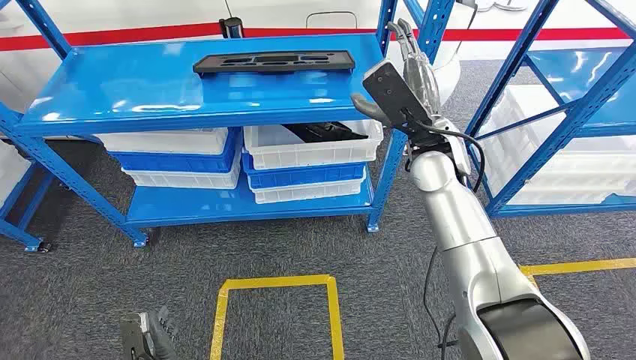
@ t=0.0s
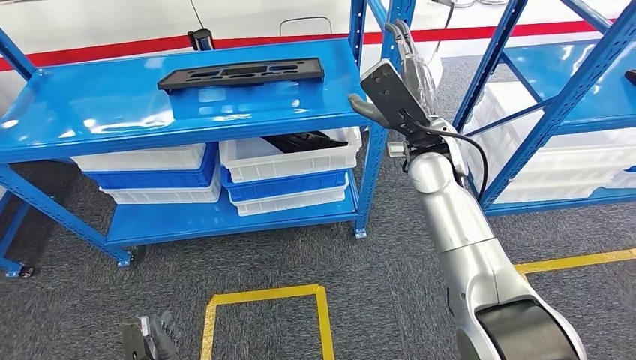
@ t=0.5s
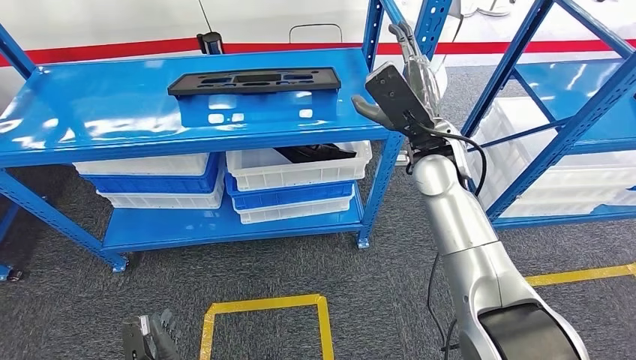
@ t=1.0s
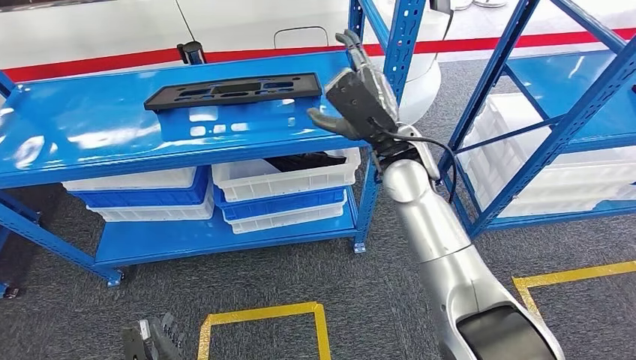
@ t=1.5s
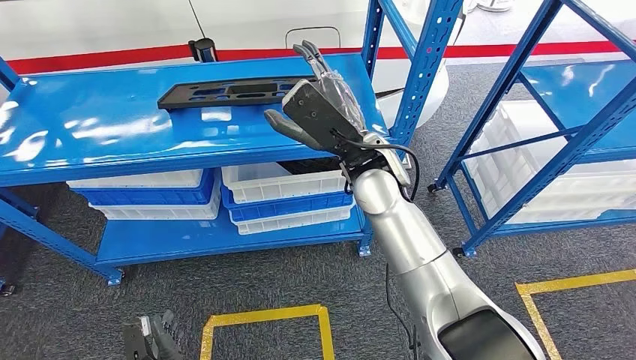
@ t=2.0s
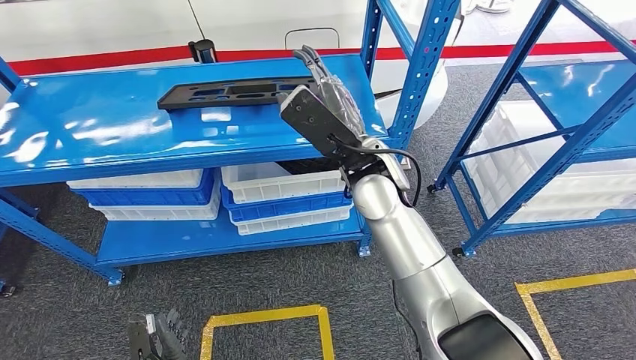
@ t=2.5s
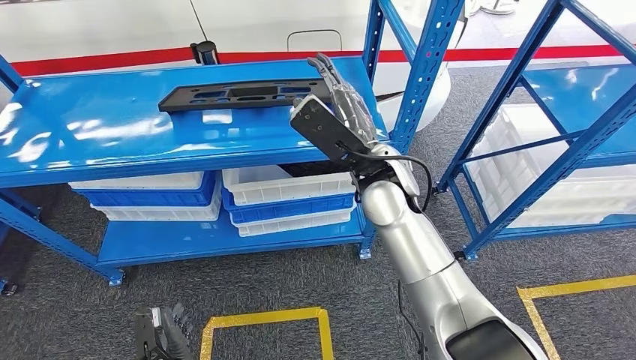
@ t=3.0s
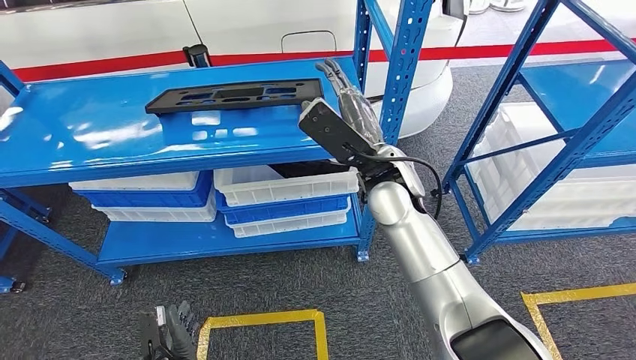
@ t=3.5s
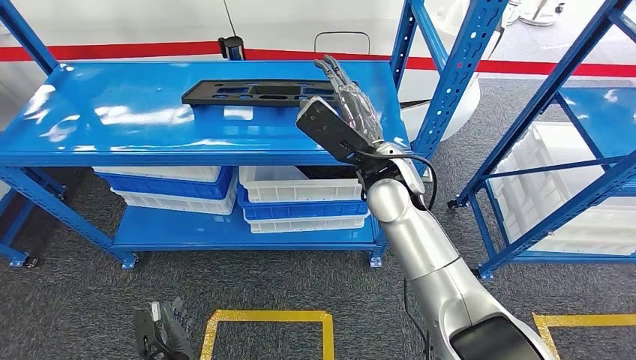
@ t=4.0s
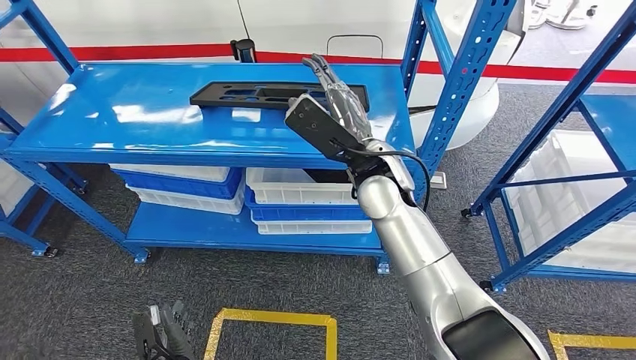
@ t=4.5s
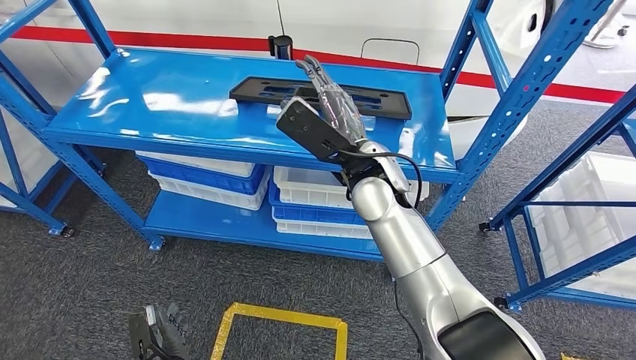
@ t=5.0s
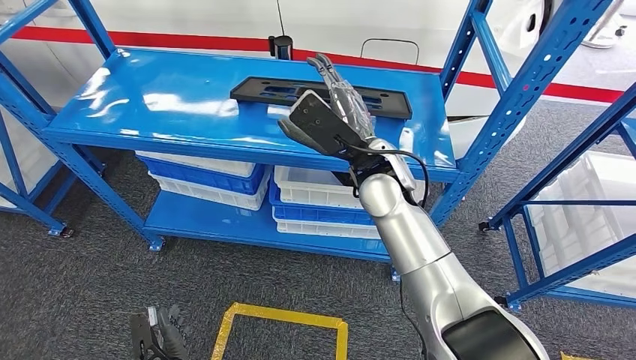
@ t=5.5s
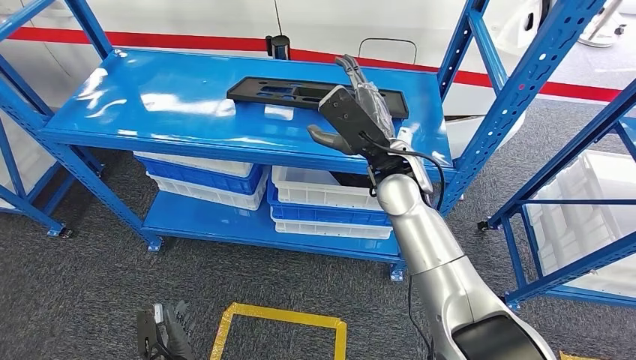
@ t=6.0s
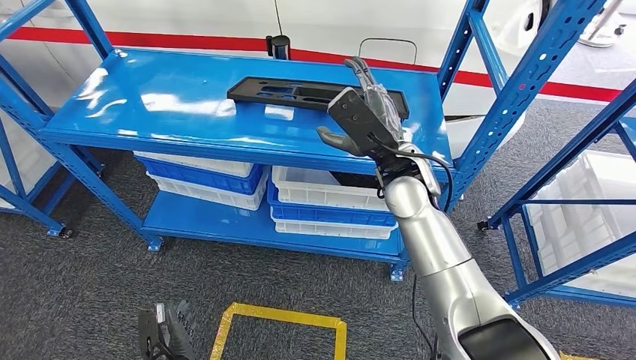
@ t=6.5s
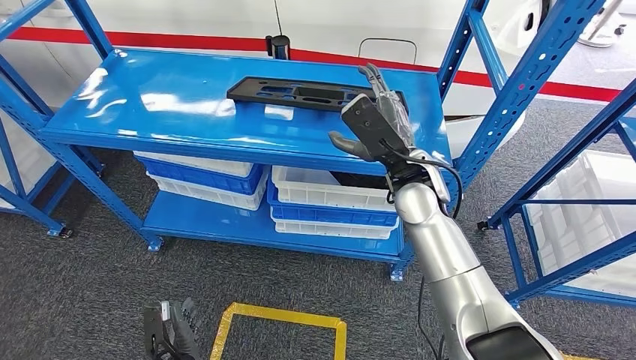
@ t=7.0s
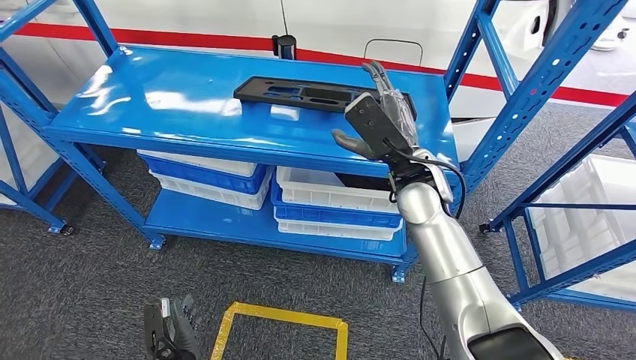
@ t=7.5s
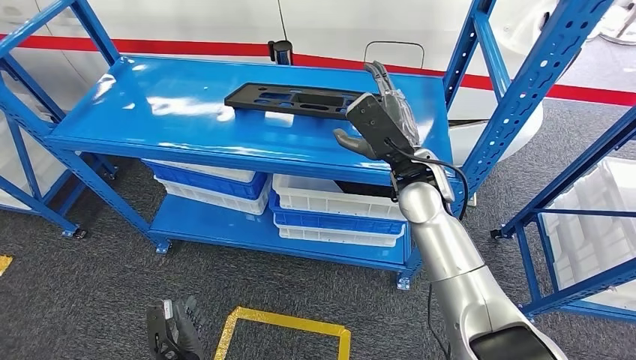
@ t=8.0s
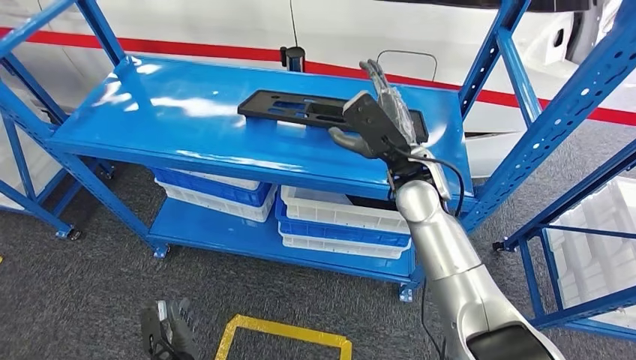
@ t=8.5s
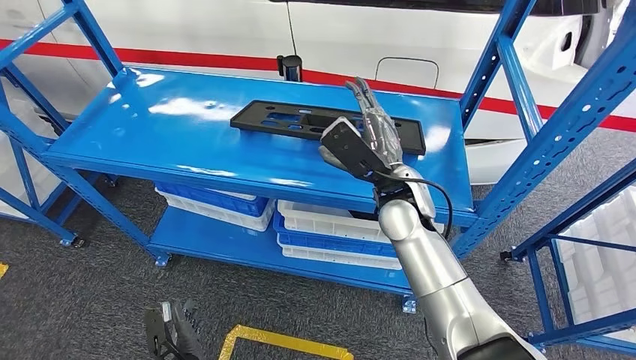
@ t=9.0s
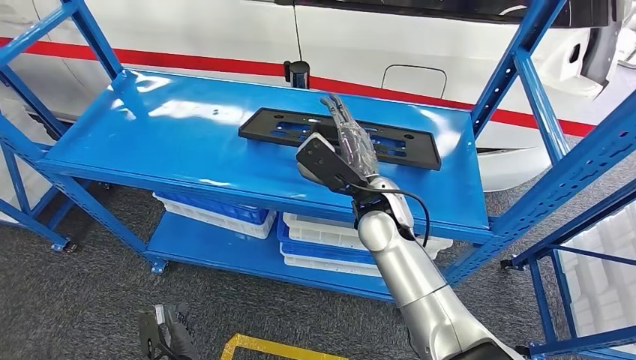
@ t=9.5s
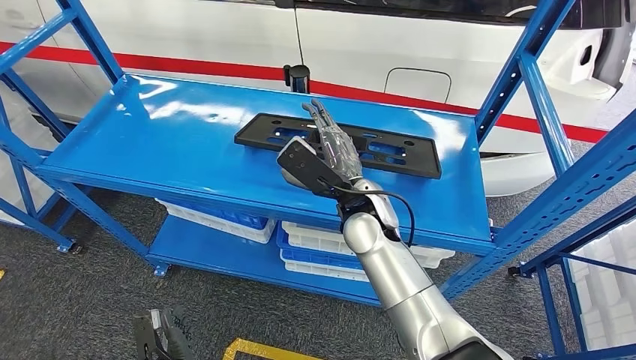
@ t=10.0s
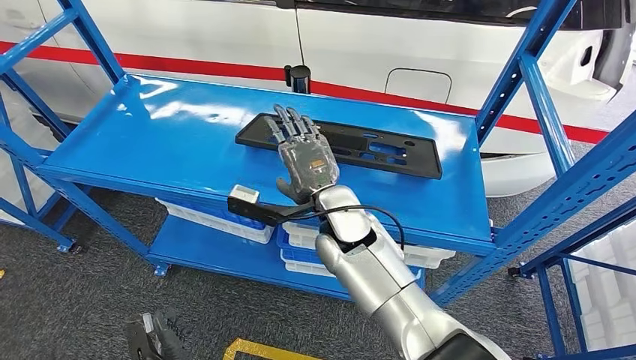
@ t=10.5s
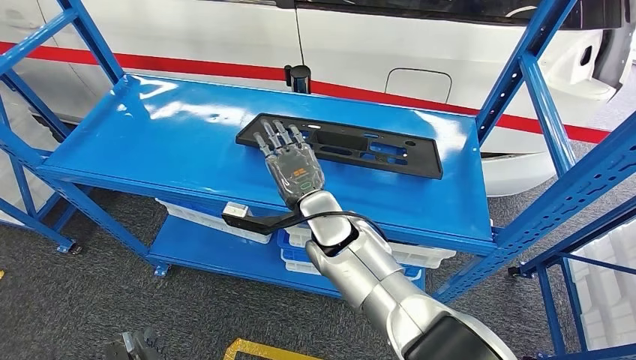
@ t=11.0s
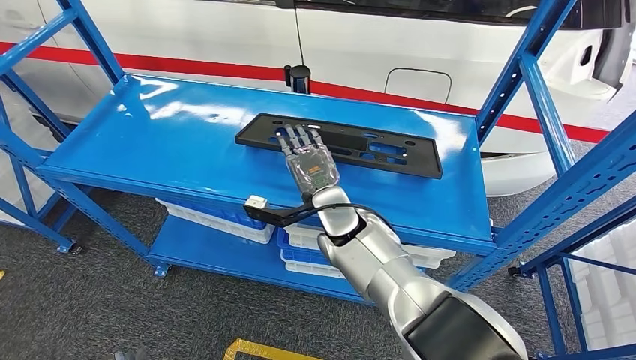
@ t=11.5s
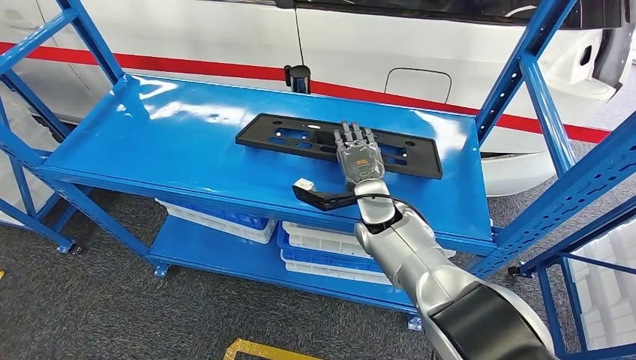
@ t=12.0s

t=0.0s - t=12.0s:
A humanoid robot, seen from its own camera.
t=10.0s - t=12.0s: The left hand travels backward and to the left by some 10 cm. The right hand moves downward, about 5 cm, and moves some 5 cm to the left and comes back.

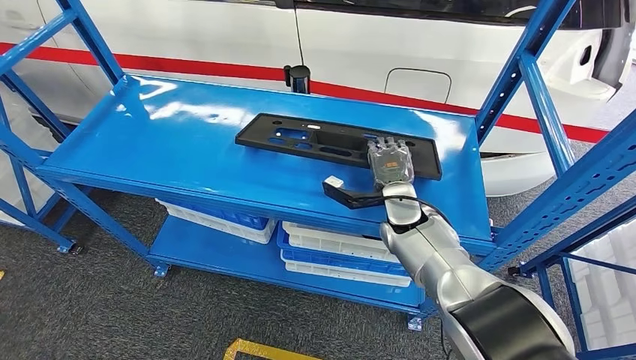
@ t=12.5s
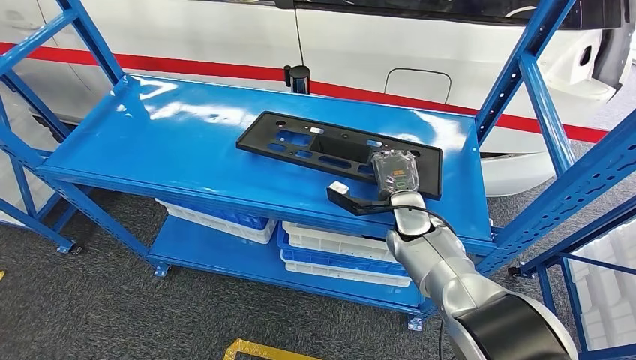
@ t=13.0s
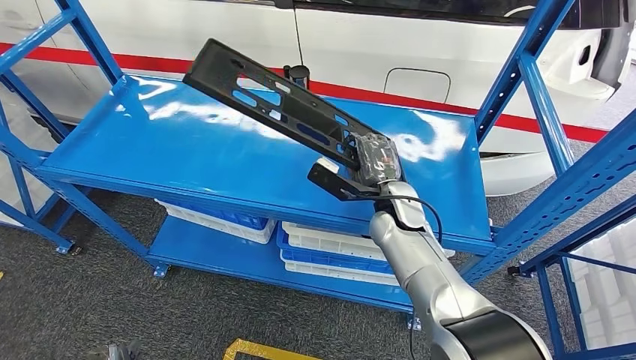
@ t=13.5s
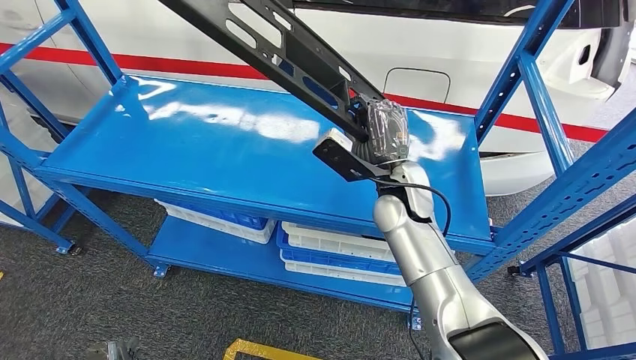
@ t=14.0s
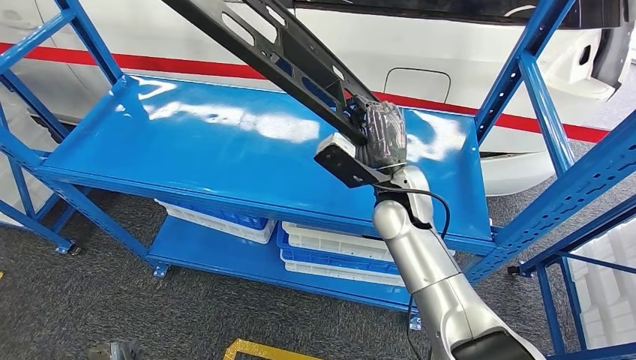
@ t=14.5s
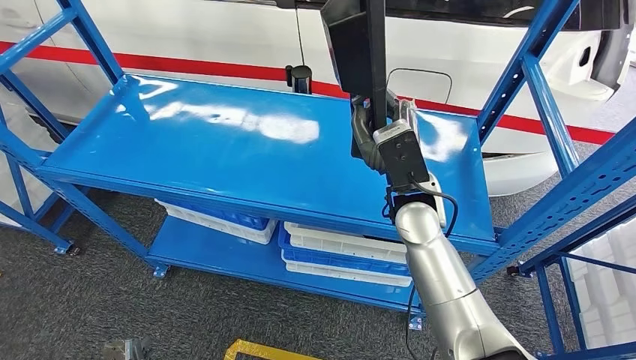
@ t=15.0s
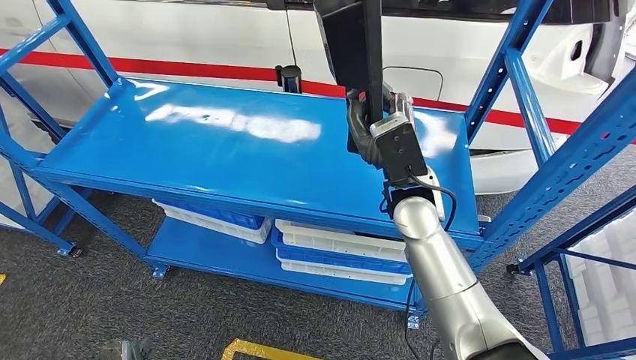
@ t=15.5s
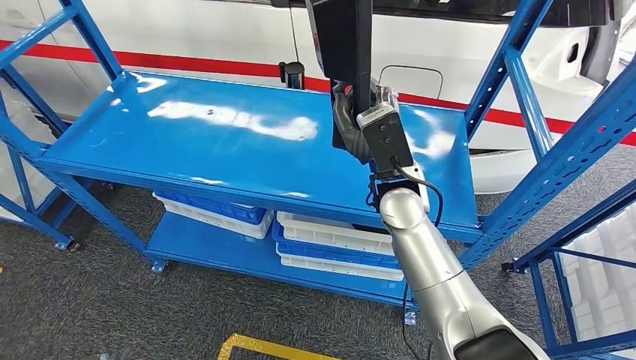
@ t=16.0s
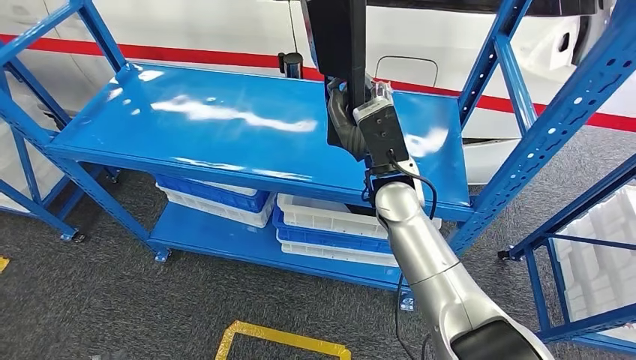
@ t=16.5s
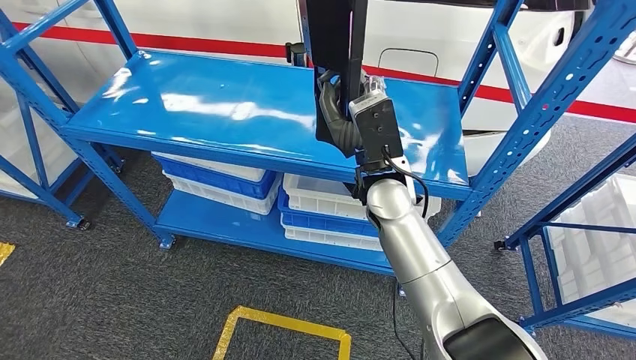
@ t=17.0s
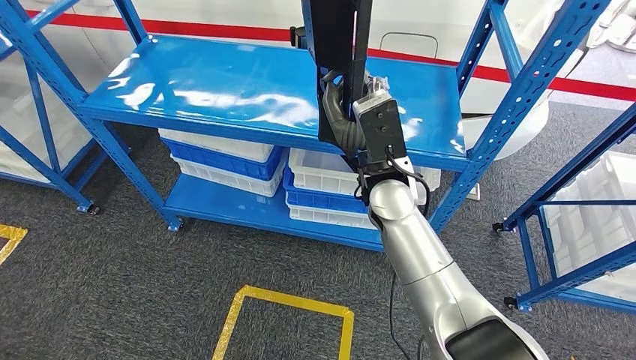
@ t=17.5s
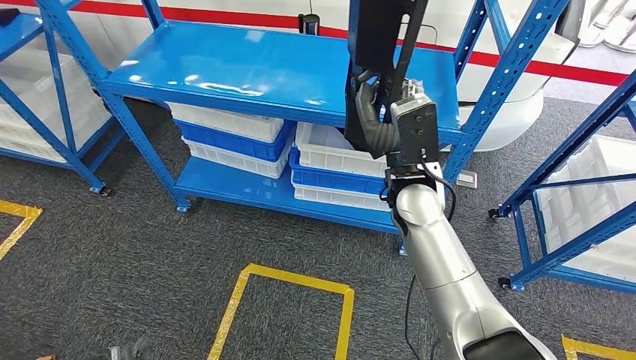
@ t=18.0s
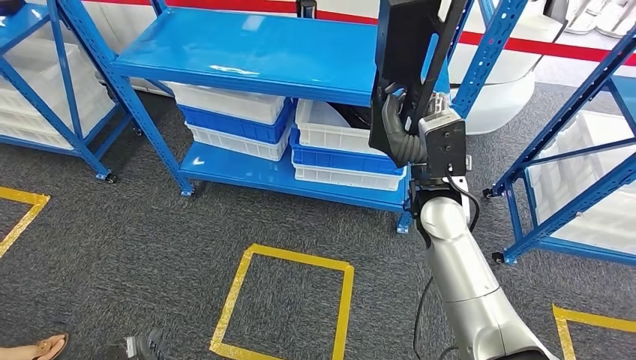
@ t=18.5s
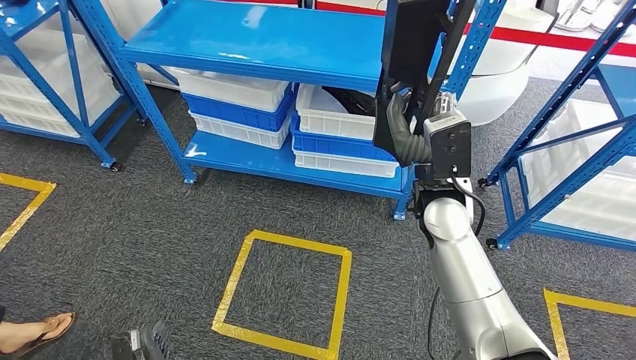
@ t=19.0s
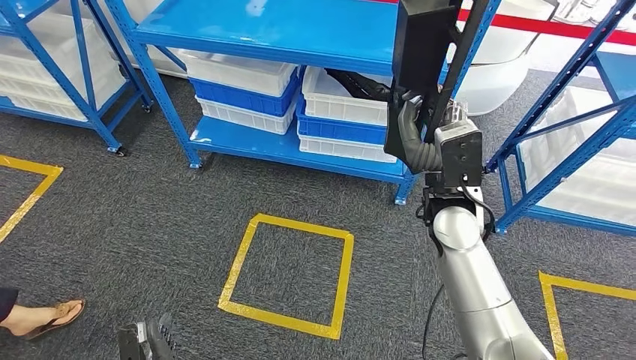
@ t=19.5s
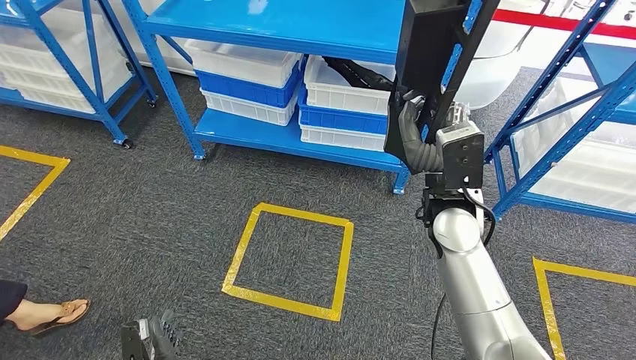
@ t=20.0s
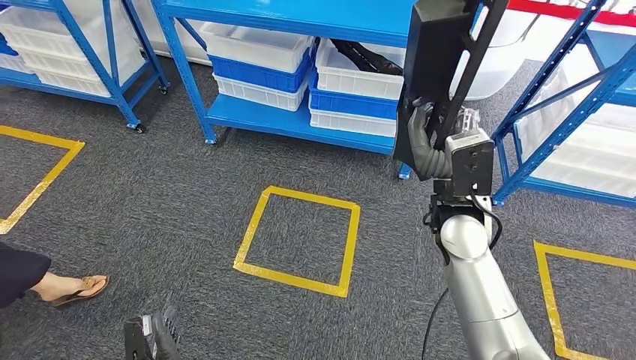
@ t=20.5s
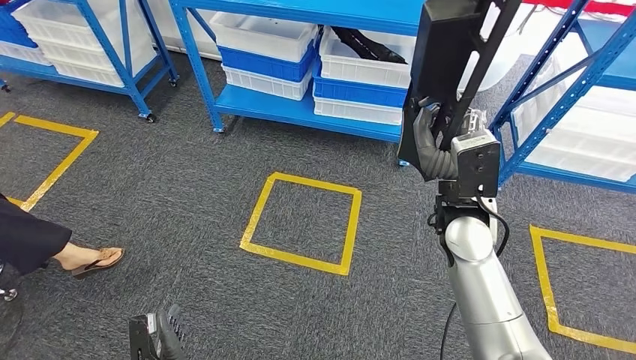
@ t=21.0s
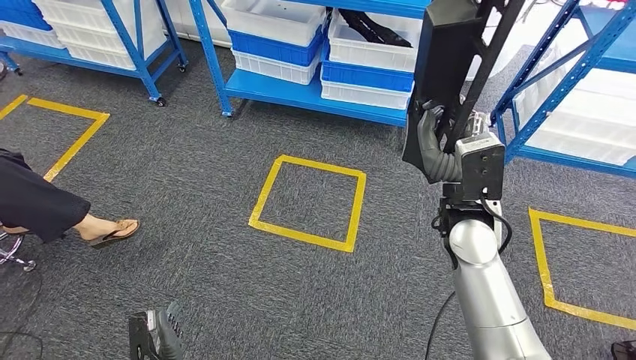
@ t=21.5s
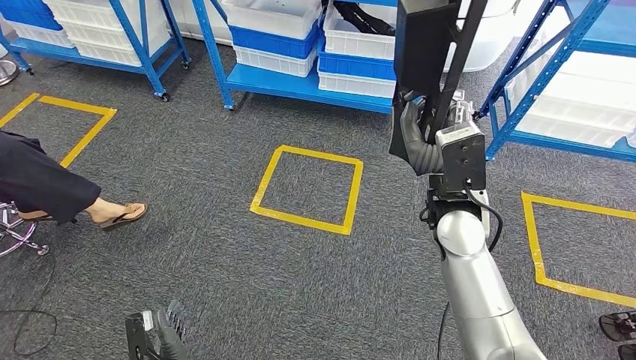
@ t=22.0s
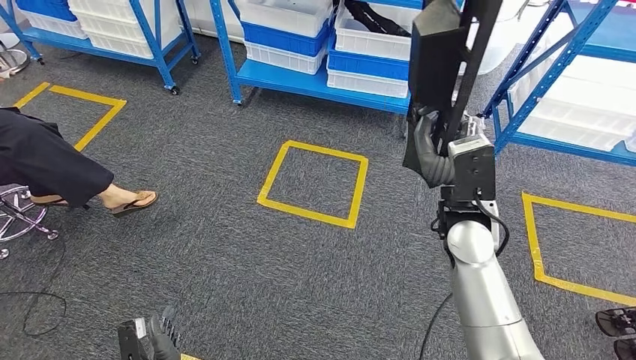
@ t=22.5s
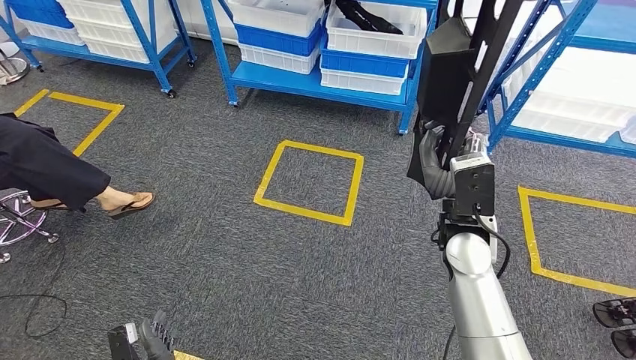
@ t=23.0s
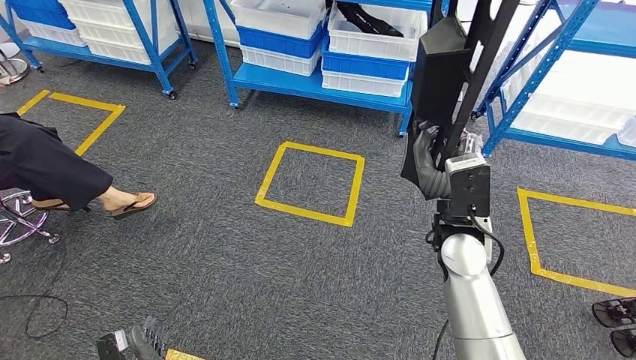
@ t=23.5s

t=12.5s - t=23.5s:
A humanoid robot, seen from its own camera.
Step, t=12.5s - t=16.5s: Pick up the large material from the shelf.
t=12.5s - t=14.5s: The right hand travels upward by approximately 10 cm.
